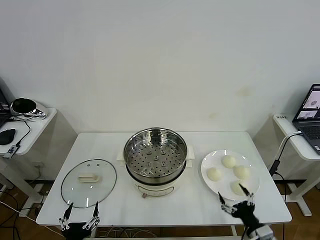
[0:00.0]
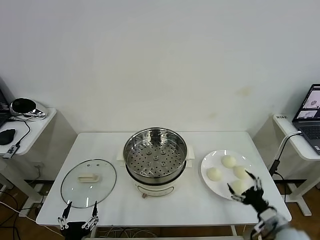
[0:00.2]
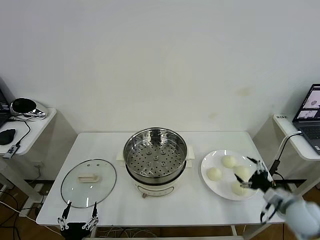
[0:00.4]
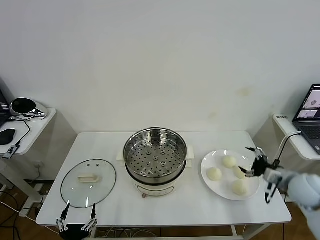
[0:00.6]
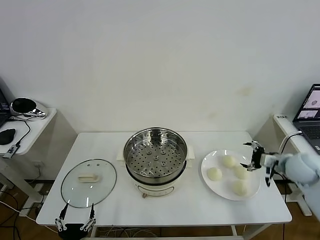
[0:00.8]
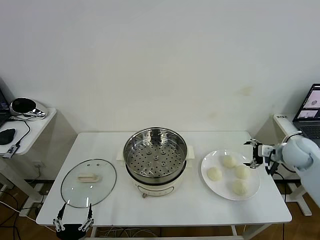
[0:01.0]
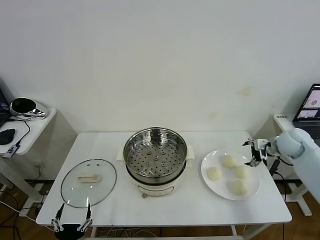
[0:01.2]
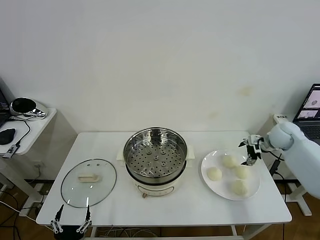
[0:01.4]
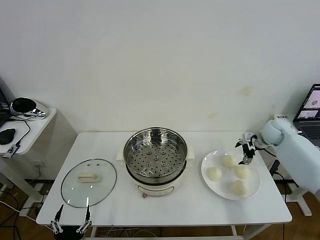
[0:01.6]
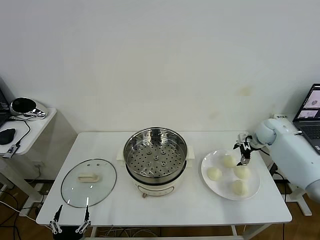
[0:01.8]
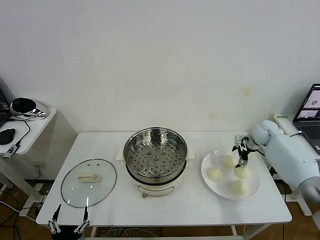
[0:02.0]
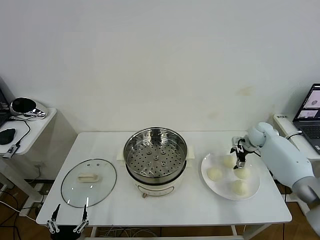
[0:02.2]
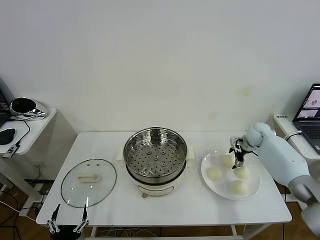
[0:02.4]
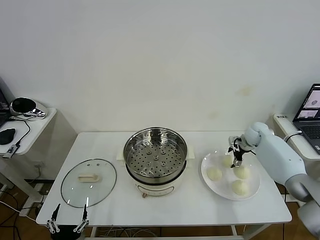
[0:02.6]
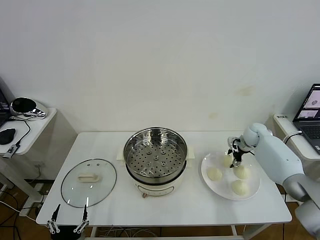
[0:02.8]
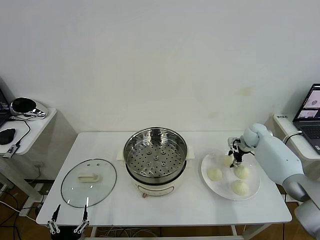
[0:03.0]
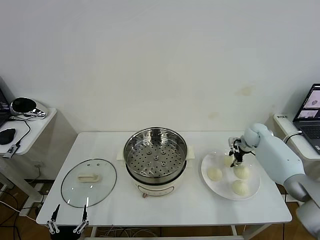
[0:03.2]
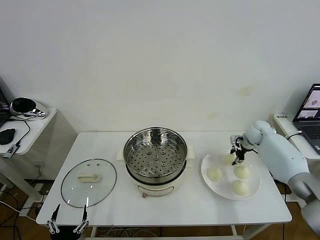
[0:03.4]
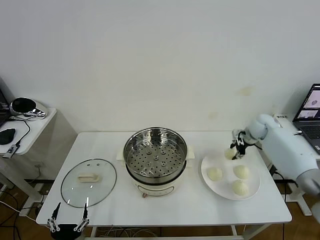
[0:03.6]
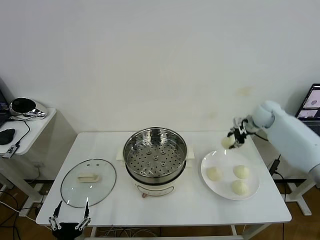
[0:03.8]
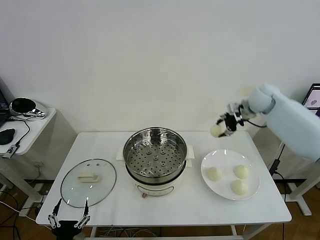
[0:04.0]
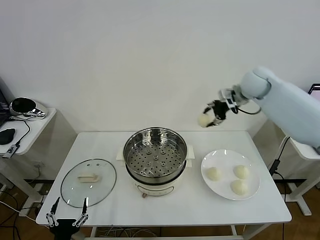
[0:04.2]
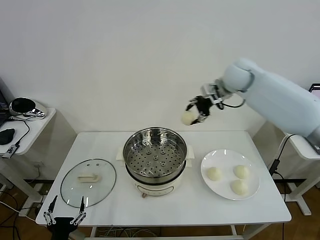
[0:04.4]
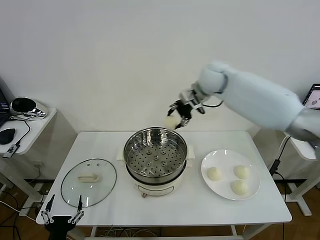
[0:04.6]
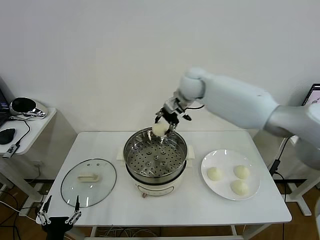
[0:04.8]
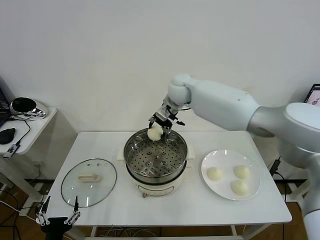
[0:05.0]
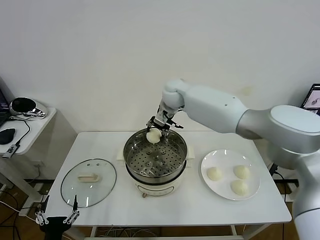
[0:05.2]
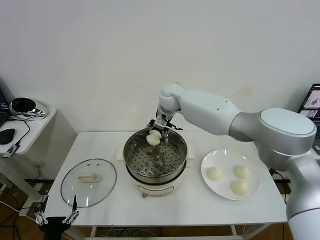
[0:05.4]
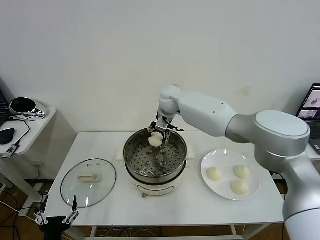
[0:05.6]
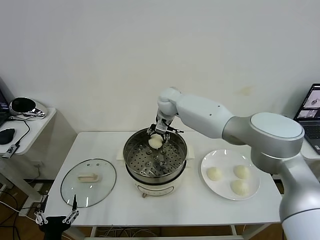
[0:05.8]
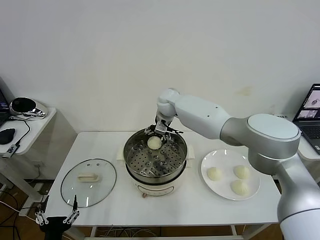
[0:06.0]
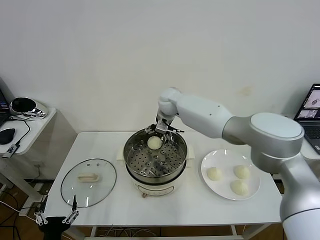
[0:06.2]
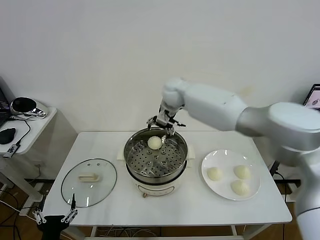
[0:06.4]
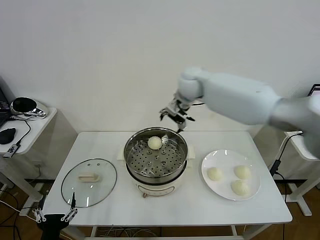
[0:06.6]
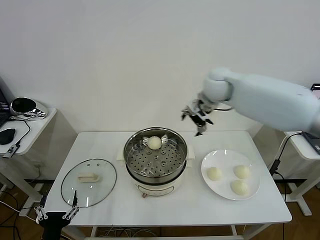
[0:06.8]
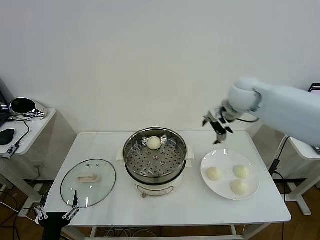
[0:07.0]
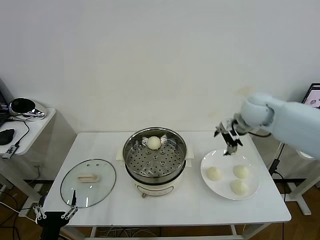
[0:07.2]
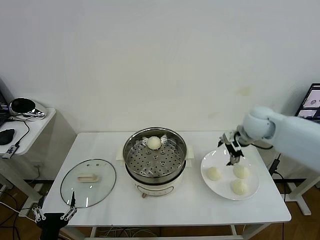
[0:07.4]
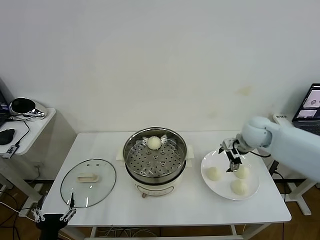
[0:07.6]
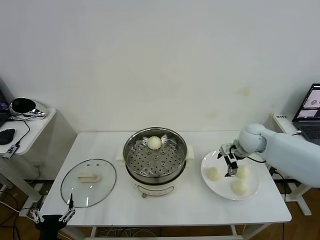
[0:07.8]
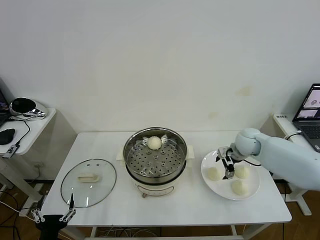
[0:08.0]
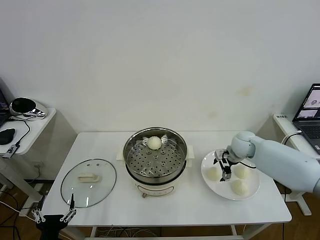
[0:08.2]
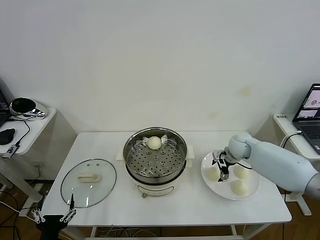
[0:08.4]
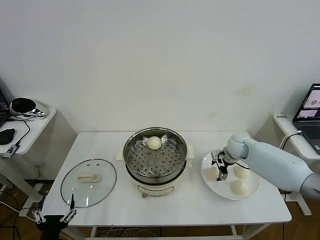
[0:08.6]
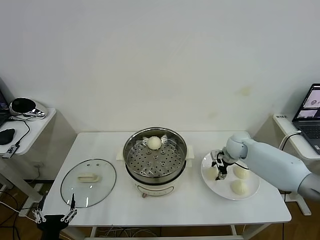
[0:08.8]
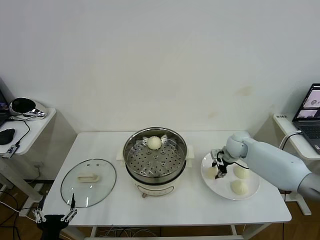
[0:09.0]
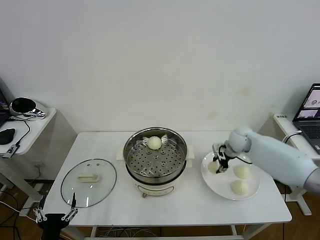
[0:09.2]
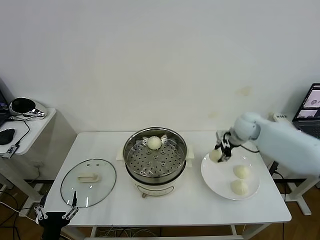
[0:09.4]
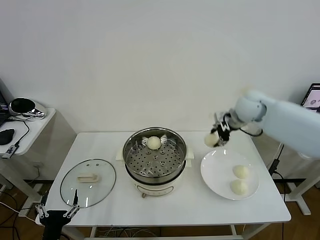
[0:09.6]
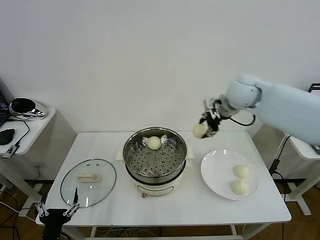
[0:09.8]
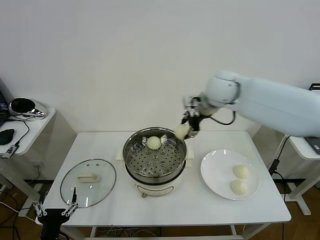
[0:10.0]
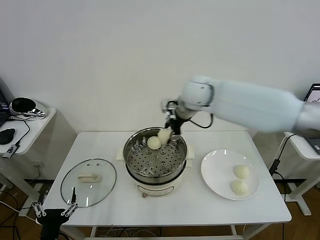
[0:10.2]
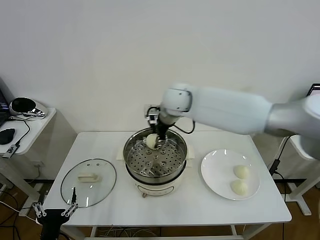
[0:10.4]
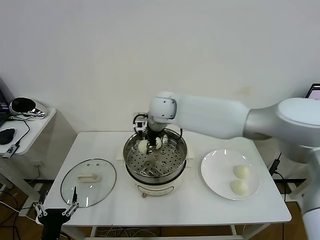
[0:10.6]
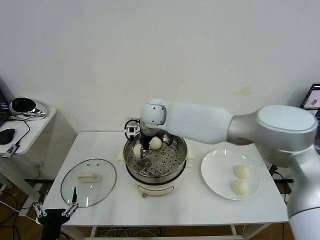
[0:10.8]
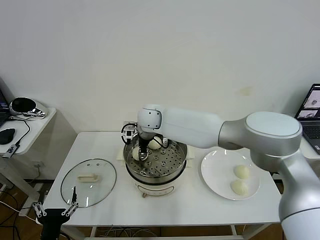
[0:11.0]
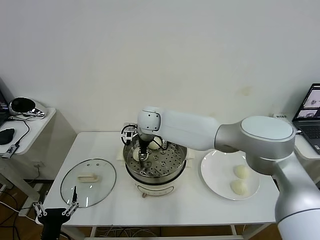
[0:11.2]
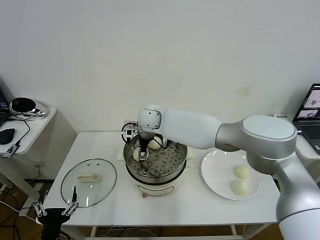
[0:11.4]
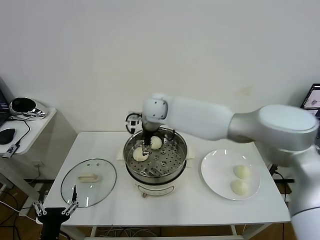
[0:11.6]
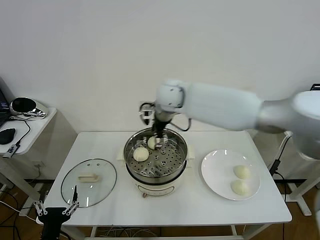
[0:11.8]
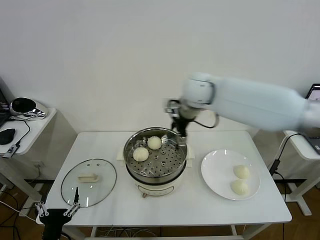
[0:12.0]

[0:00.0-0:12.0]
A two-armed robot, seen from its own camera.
Task of the whole recording: take steamed baozi put them in steamer then cover it.
Step, 0:00.0 to 0:03.0: Grasp the baozi in the plate with right gripper.
Step, 0:03.2 to 0:06.0: Place the baozi on the steamer with right gripper.
Step, 0:06.2 to 0:08.8: Grasp the baozi in the plate with right gripper.
Step, 0:09.0 to 0:11.4: Place the baozi on the steamer with right gripper.
0:01.6 to 0:03.0: The right gripper shifts some 5 cm downward, and closes up.
0:03.0 to 0:04.4: The right gripper travels upward and to the left by roughly 35 cm.
0:04.4 to 0:06.0: The right gripper heads to the left and downward, covering approximately 20 cm, and opens its fingers.
0:06.0 to 0:07.6: The right gripper shifts some 30 cm to the right and backward.
0:07.6 to 0:09.0: The right gripper heads downward, covering about 10 cm, and closes its fingers.
0:09.0 to 0:10.4: The right gripper goes about 35 cm to the left and upward.
0:10.4 to 0:12.0: The right gripper heads to the right, covering approximately 15 cm, and opens its fingers.

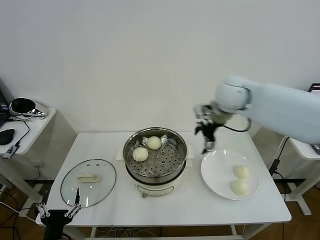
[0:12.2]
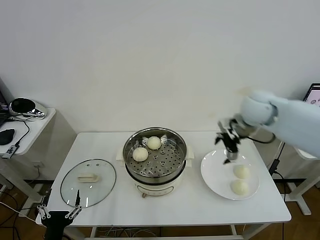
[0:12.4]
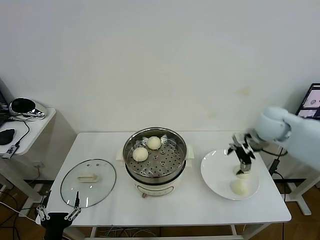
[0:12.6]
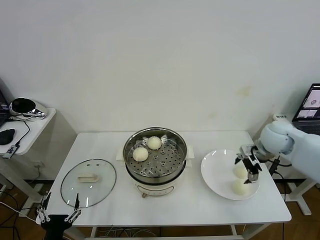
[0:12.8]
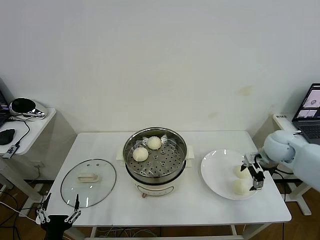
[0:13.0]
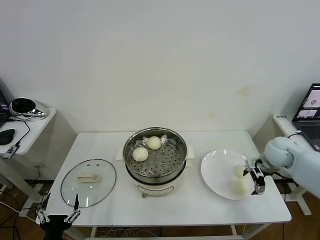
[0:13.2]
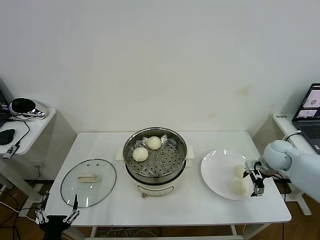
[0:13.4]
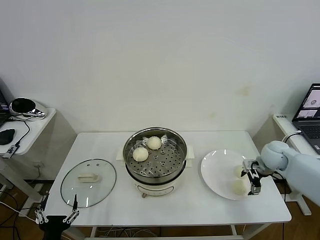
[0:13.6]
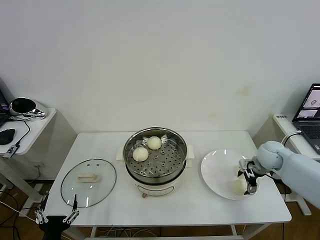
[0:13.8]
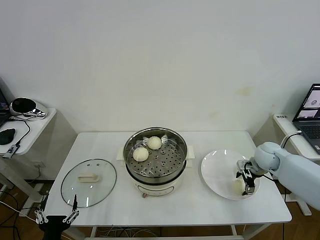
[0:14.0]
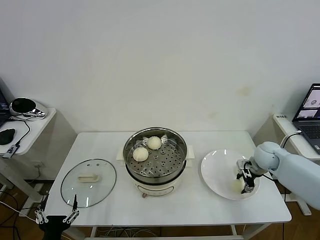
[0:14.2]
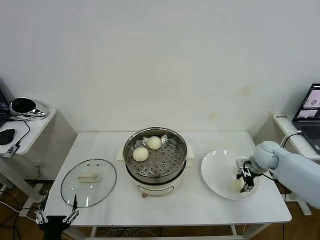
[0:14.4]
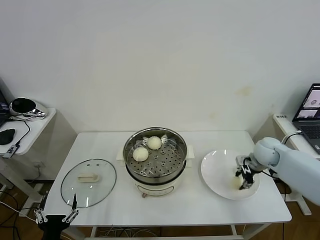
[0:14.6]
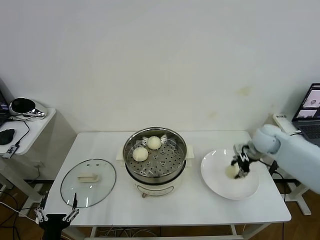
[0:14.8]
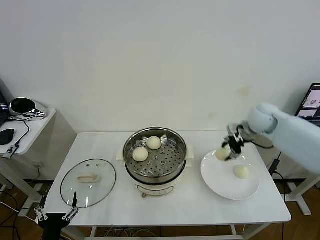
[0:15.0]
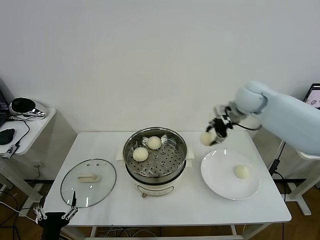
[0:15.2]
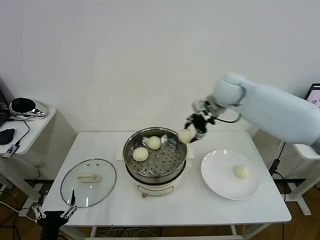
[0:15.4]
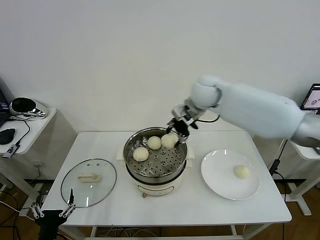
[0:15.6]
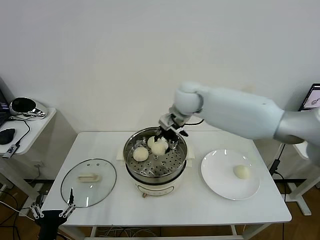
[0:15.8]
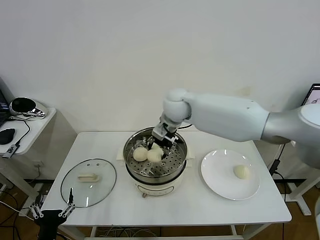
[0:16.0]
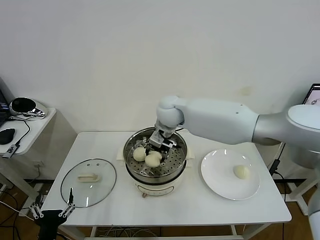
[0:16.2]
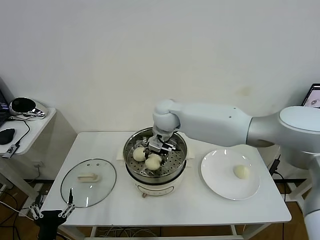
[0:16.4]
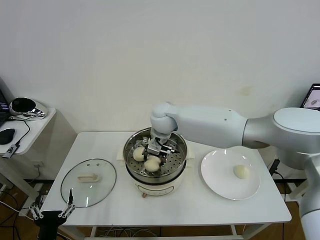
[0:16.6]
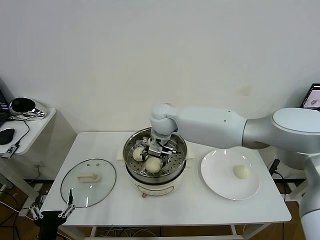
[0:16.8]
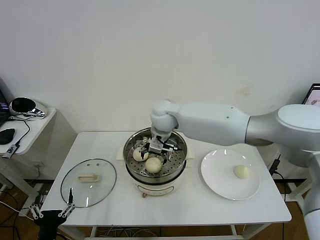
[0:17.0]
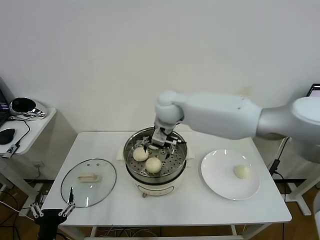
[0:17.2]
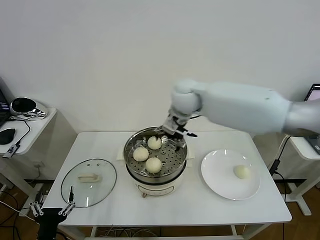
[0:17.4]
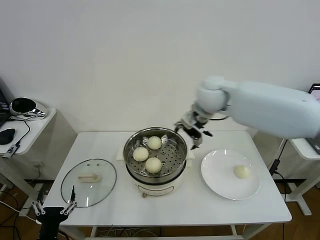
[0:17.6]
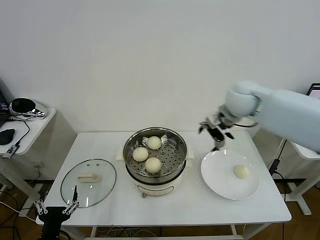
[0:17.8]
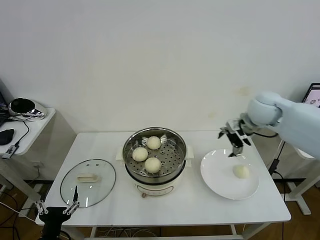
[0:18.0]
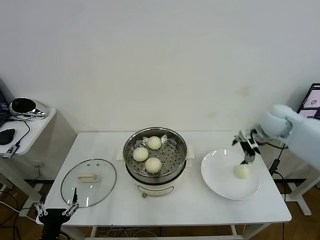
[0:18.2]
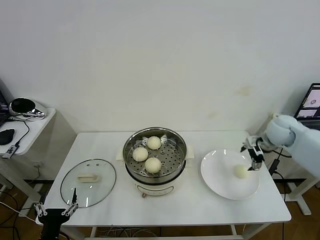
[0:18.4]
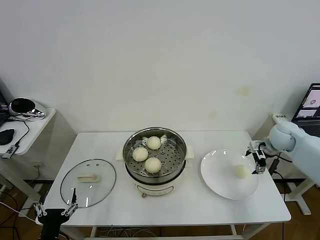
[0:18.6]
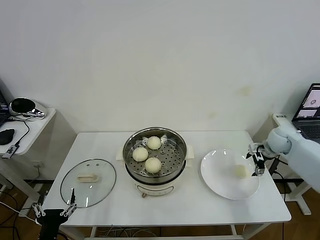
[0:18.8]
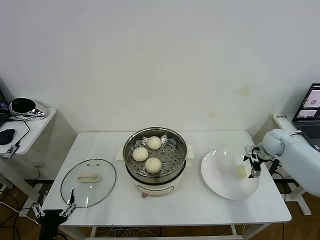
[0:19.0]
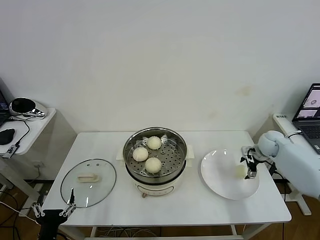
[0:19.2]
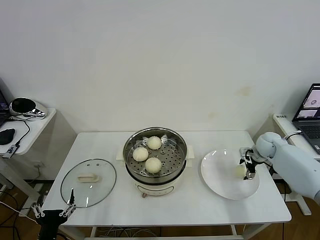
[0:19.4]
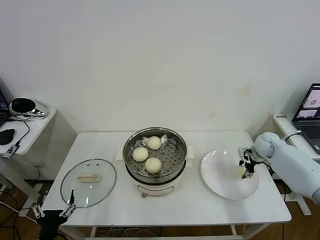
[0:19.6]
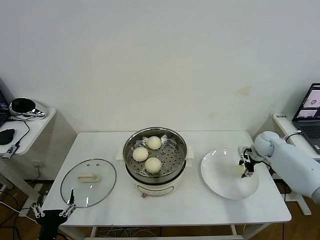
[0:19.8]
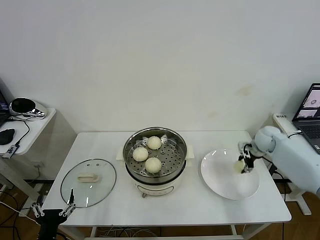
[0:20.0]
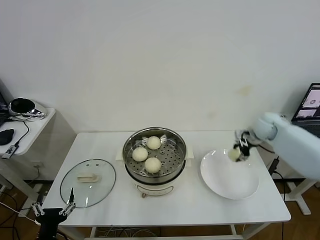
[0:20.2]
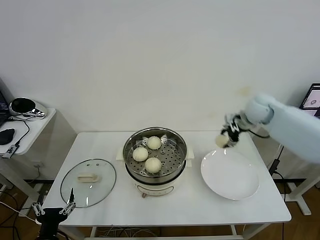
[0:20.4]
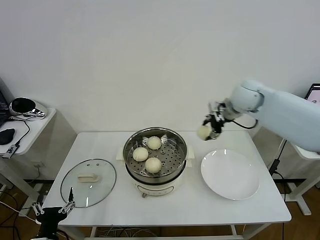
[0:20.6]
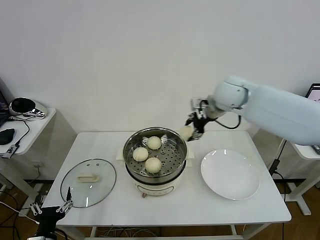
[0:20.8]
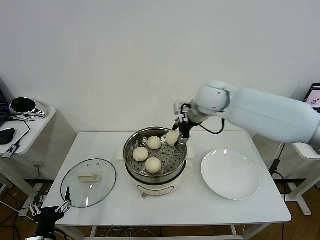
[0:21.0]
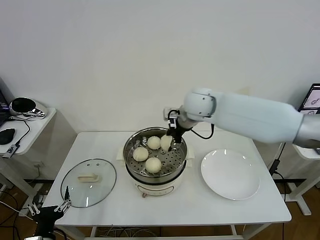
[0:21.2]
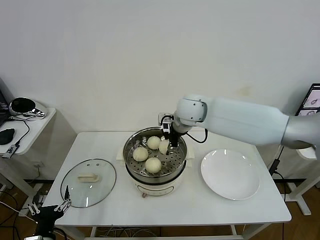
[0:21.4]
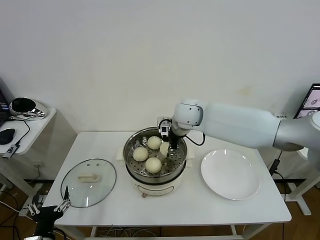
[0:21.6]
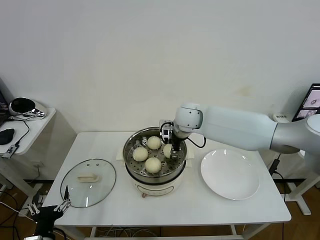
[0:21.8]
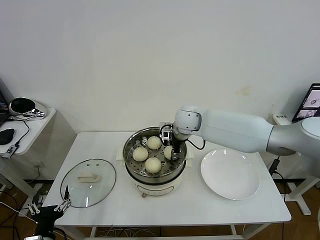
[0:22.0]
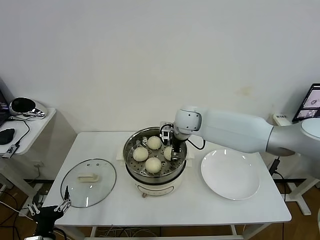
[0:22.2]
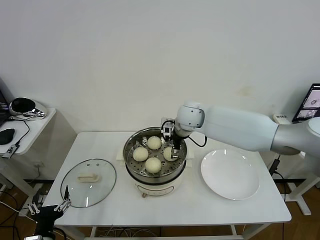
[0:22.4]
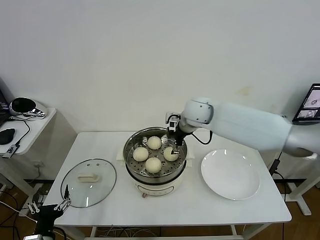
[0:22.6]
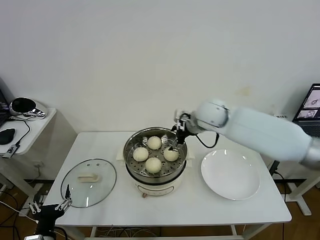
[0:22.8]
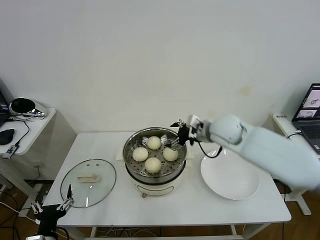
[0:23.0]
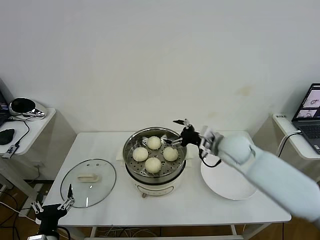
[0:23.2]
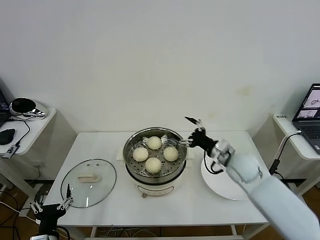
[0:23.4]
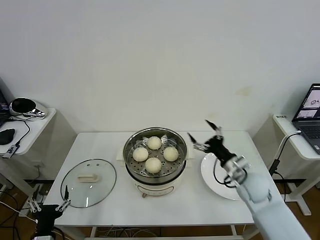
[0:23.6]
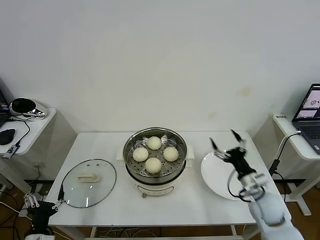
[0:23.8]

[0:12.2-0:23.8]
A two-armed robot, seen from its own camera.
Task of the whole recording: take steamed baozi put them in steamer then cover it.
Step, 0:12.2 to 0:14.4: Grasp the baozi in the plate with right gripper.
Step, 0:14.6 to 0:17.0: Place the baozi on the steamer with right gripper.
Step, 0:17.2 to 0:19.8: Grasp the baozi in the plate with right gripper.
Step, 0:20.0 to 0:22.4: Place the baozi on the steamer with right gripper.
0:12.2 to 0:13.6: The right gripper shifts approximately 25 cm downward and to the right.
0:13.6 to 0:15.0: The right gripper heads upward, to the left and forward, covering some 20 cm, and closes.
0:15.0 to 0:16.6: The right gripper heads to the left, covering about 30 cm.
0:16.6 to 0:18.0: The right gripper is displaced to the right by about 30 cm, and opens its fingers.
0:18.0 to 0:19.4: The right gripper travels downward and to the right by roughly 20 cm.
0:19.4 to 0:21.0: The right gripper is displaced to the left and upward by about 35 cm, and closes.
0:21.0 to 0:22.4: The right gripper heads downward, covering about 10 cm, and opens.
0:22.4 to 0:23.8: The right gripper heads to the right, backward and downward, covering roughly 35 cm.
